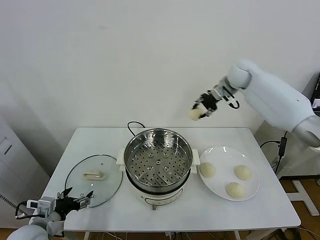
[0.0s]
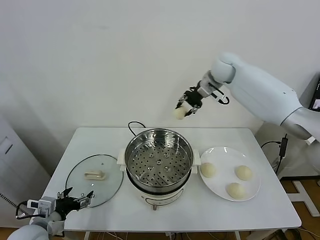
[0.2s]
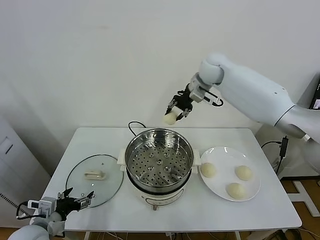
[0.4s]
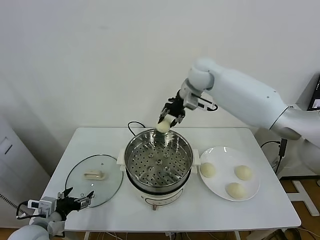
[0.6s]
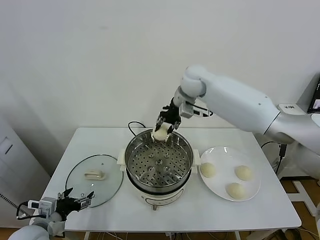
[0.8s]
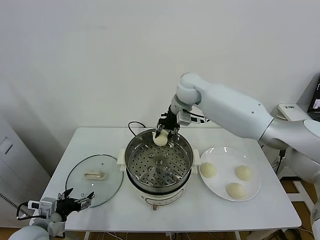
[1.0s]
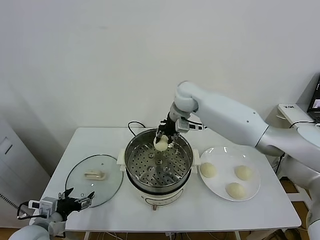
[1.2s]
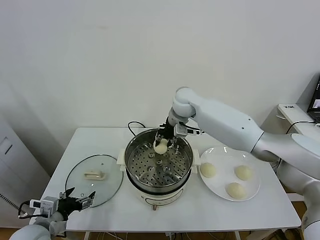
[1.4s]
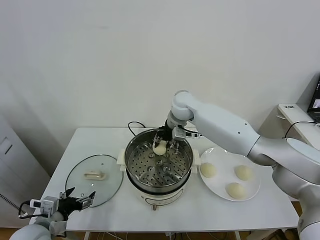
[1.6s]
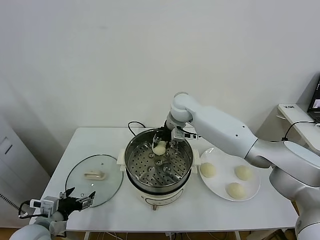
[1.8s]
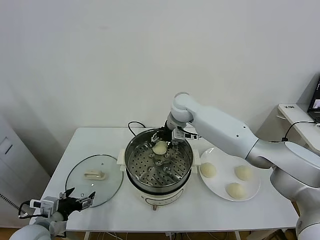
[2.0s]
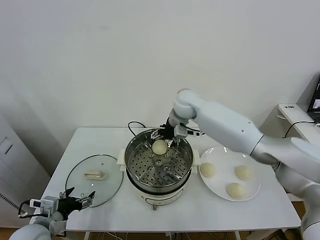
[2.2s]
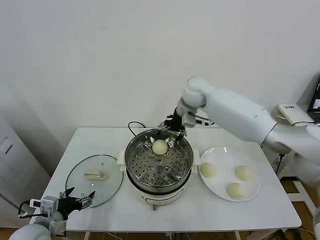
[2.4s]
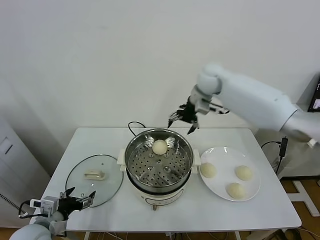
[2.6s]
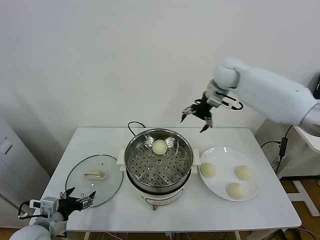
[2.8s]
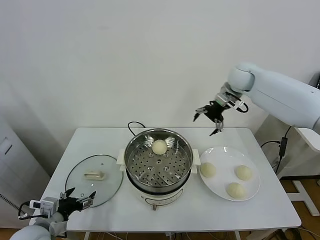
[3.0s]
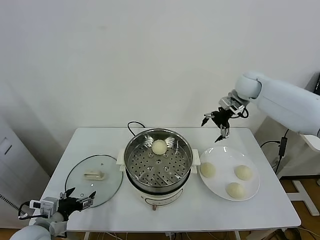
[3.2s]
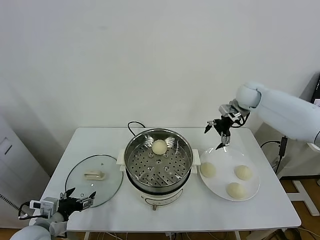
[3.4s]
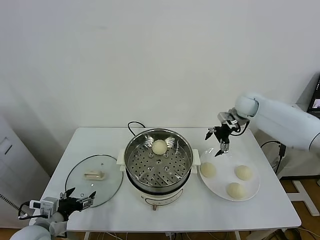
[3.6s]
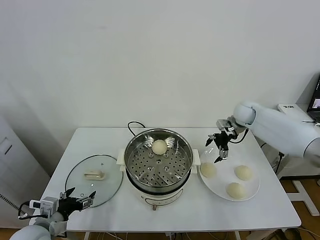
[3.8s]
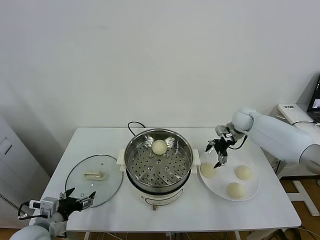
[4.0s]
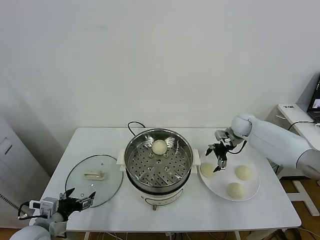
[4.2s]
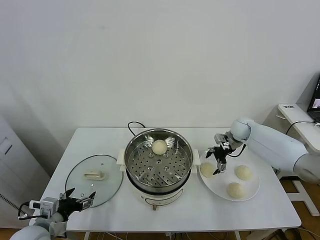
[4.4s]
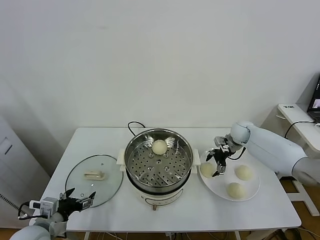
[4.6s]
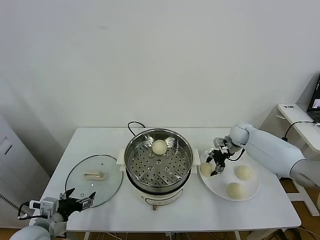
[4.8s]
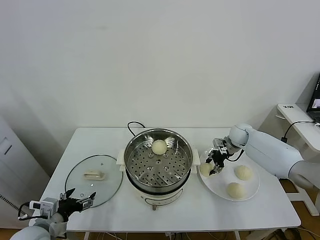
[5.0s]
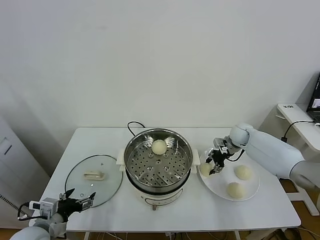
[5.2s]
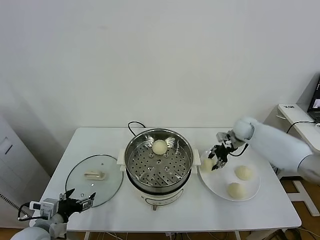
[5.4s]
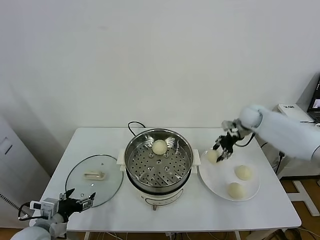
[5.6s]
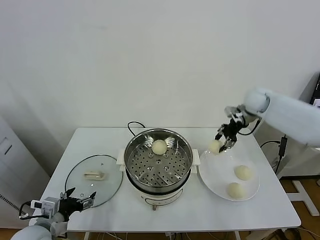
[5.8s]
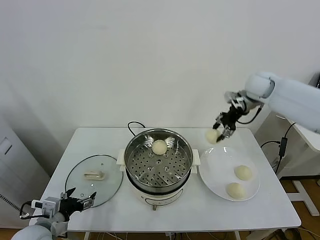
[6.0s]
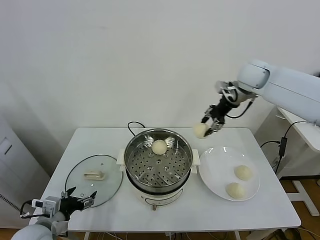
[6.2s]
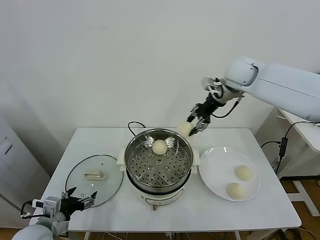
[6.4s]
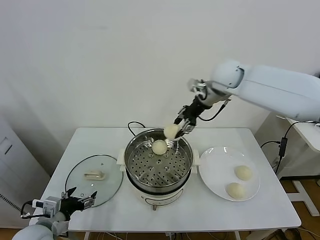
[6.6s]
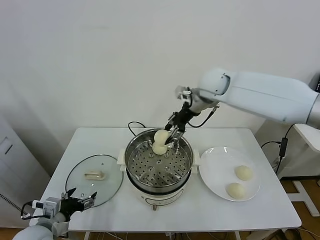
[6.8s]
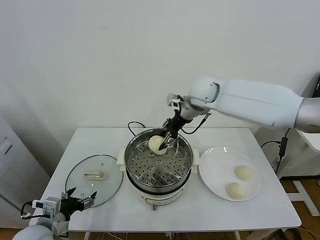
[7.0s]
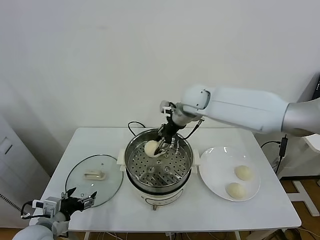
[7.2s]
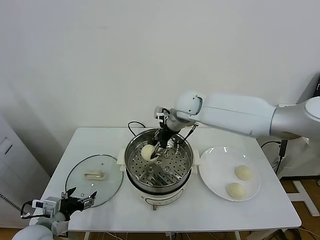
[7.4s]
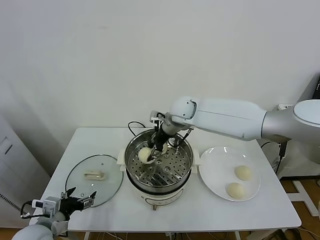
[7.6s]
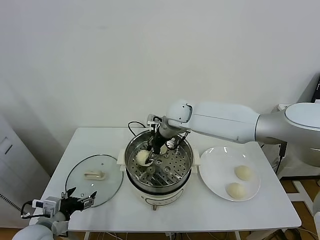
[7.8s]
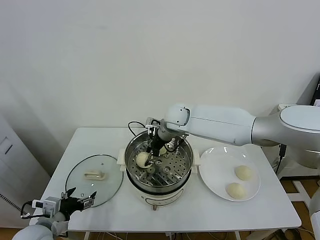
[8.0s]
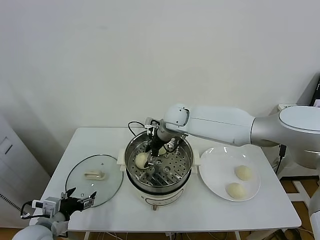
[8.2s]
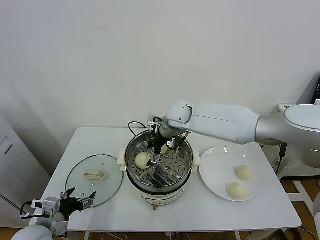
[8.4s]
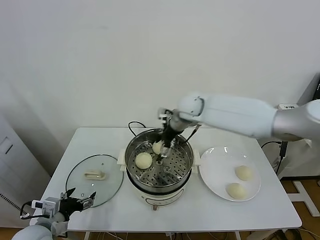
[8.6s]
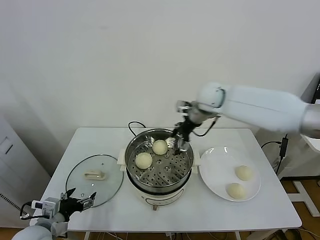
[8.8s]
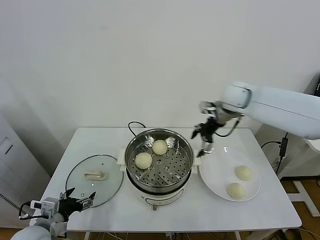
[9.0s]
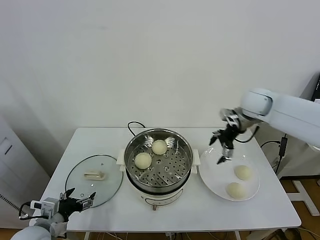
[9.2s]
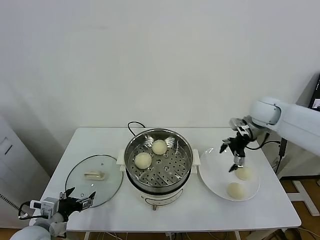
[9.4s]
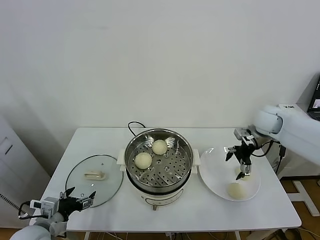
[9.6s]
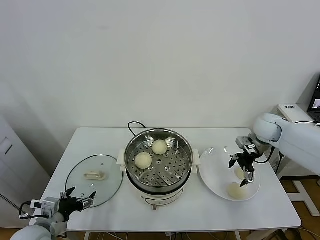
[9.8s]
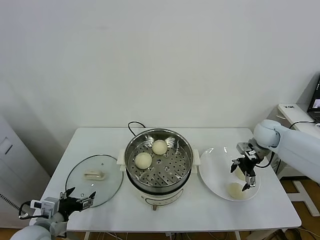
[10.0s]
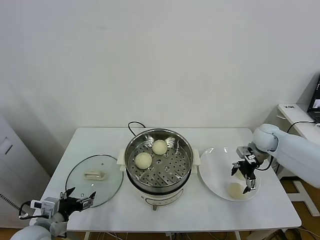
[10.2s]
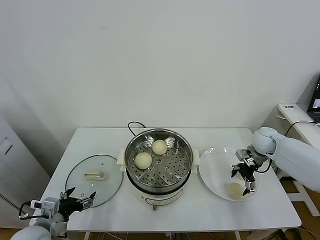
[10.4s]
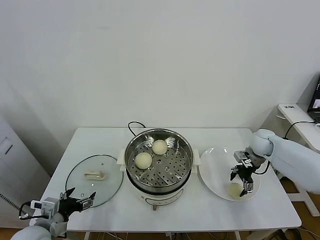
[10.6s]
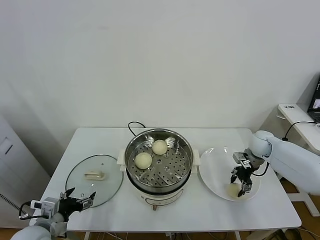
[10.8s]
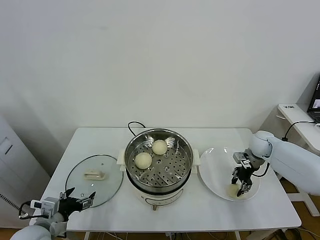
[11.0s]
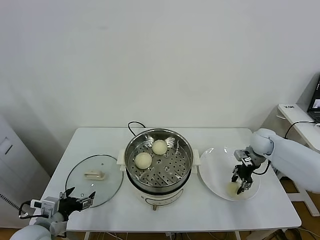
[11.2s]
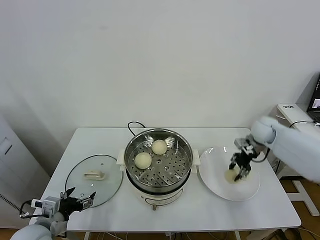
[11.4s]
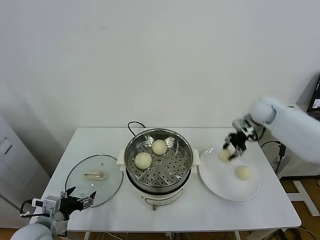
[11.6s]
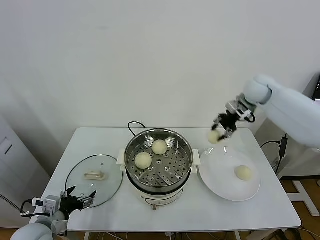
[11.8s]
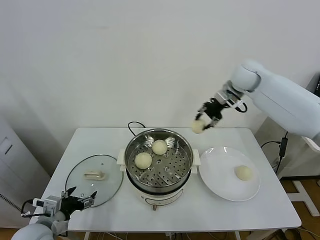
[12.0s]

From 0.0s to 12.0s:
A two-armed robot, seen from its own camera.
Task of the whole recording: take steamed baozi put them in steamer.
Step, from 0.0s to 2.0s: Place the baozi on the steamer with right gripper.
Step, from 2.2s to 4.8s: Grasp the baozi in the plate with right gripper.
Step, from 5.0s to 8.4s: Place the baozi on the steamer with right gripper.
Step, from 8.6s to 10.8s: Grasp the baozi in the plate with right gripper.
From 0.0s to 1.6s: The right gripper shifts roughly 20 cm to the left and downward.
From 1.6s to 3.0s: The right gripper shifts some 25 cm to the right and upward, and opens.
From 3.0s to 4.4s: The right gripper moves downward, some 20 cm.
From 4.4s to 6.0s: The right gripper goes approximately 25 cm upward, and closes.
From 6.0s to 7.6s: The right gripper travels to the left and downward by some 25 cm.
From 7.6s to 9.0s: The right gripper shifts approximately 20 cm to the right, and opens up.
From 9.0s to 10.4s: The right gripper heads downward and to the right, covering roughly 20 cm.
From 10.4s to 12.0s: The right gripper goes approximately 30 cm upward and to the left, and closes up.

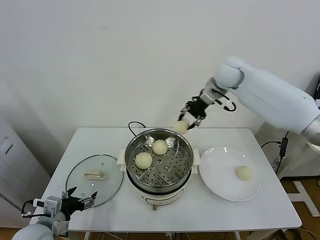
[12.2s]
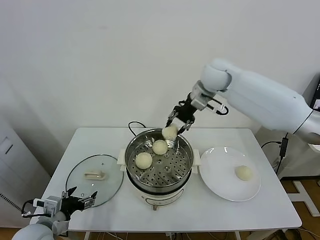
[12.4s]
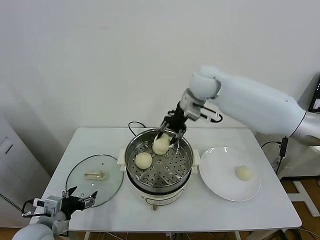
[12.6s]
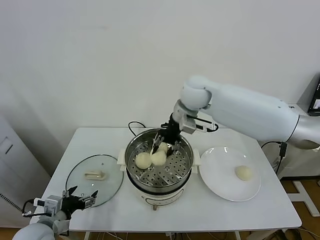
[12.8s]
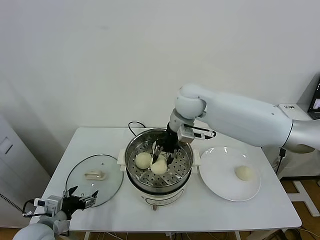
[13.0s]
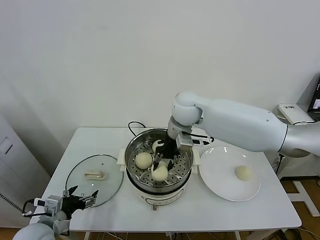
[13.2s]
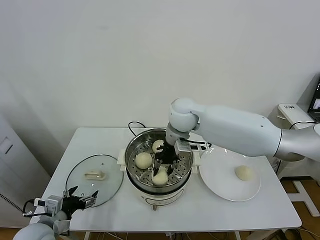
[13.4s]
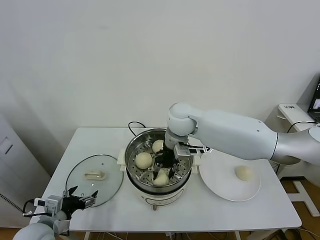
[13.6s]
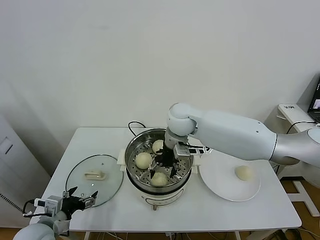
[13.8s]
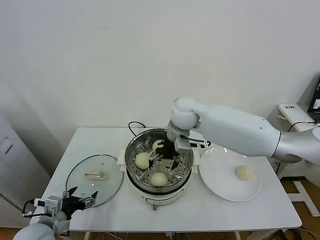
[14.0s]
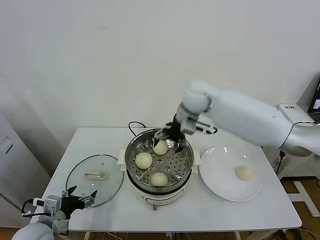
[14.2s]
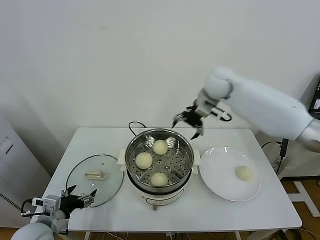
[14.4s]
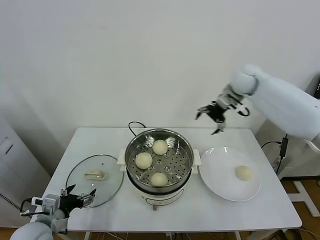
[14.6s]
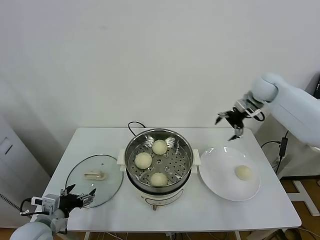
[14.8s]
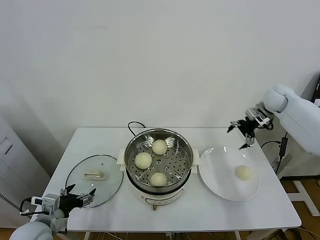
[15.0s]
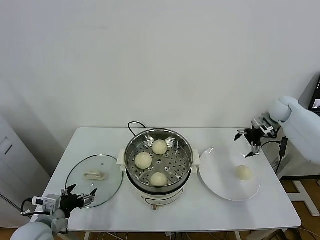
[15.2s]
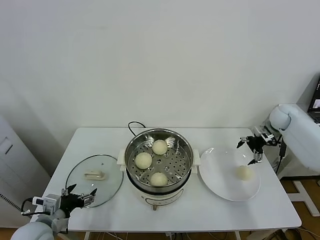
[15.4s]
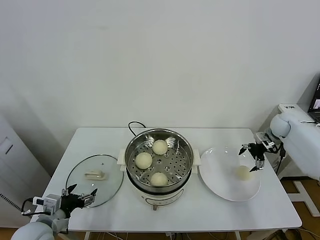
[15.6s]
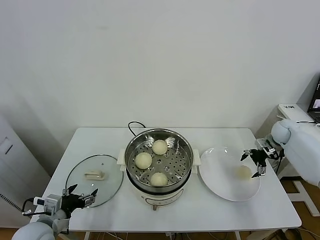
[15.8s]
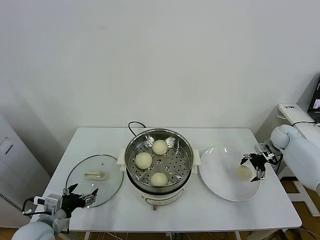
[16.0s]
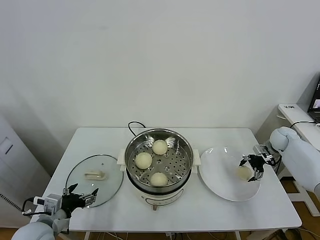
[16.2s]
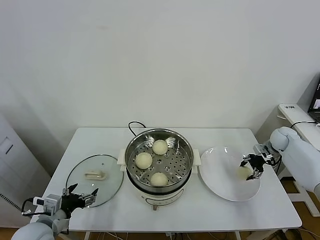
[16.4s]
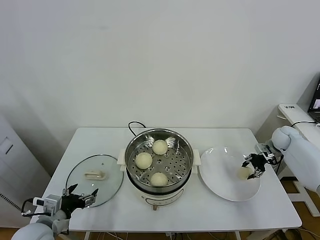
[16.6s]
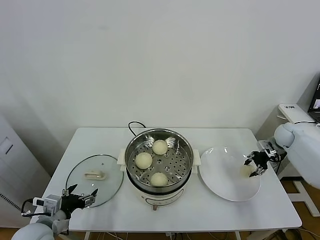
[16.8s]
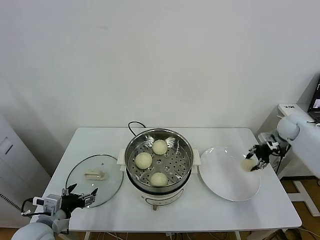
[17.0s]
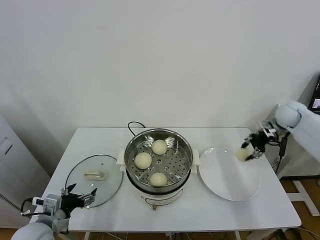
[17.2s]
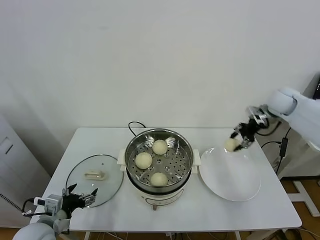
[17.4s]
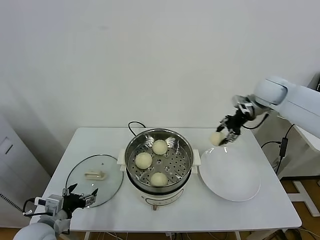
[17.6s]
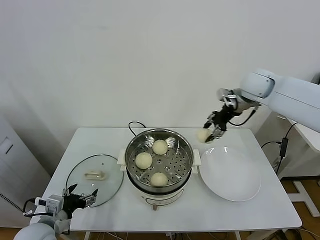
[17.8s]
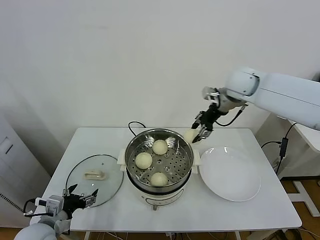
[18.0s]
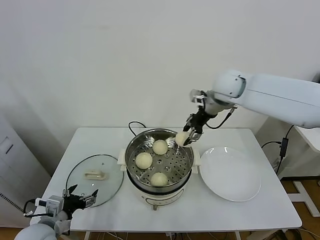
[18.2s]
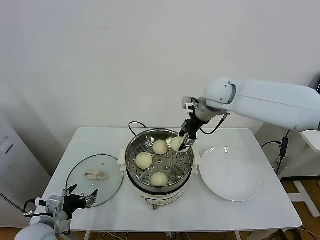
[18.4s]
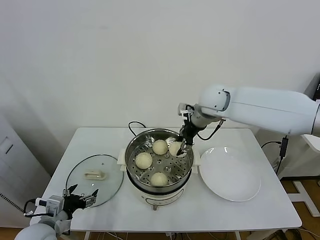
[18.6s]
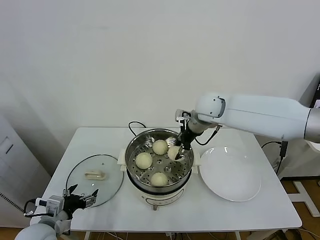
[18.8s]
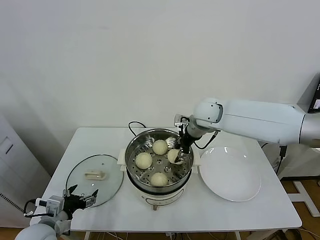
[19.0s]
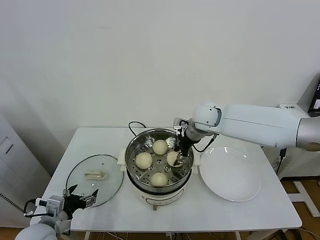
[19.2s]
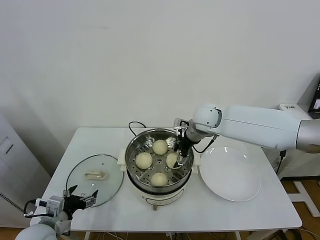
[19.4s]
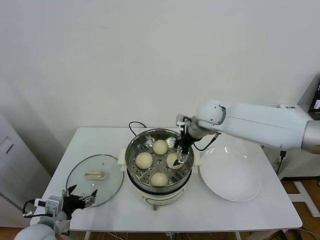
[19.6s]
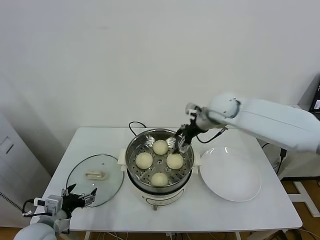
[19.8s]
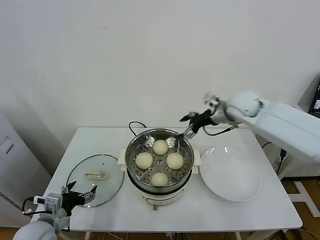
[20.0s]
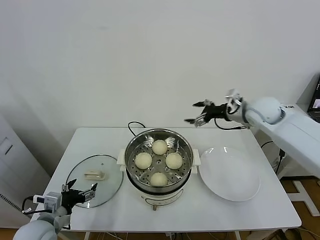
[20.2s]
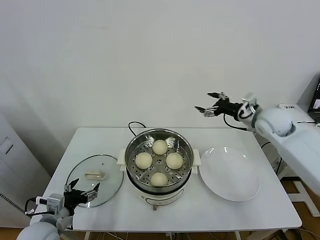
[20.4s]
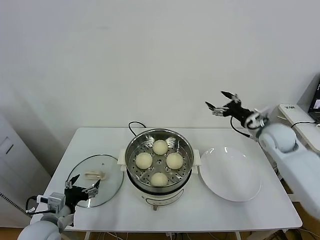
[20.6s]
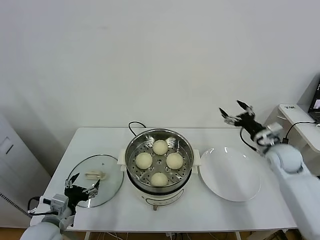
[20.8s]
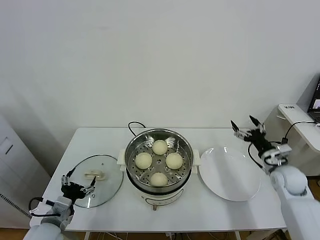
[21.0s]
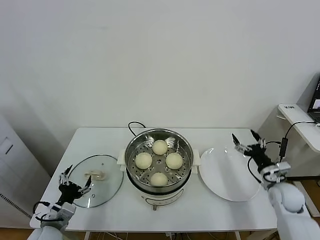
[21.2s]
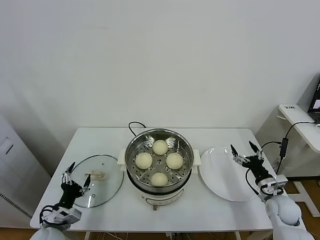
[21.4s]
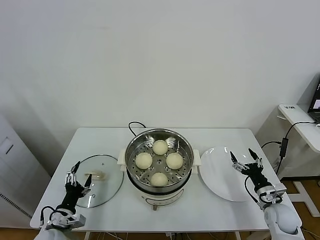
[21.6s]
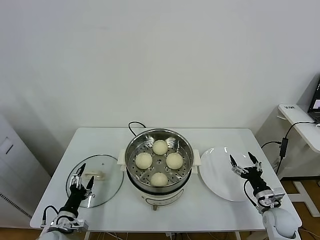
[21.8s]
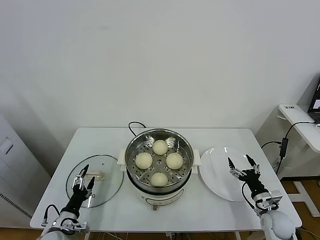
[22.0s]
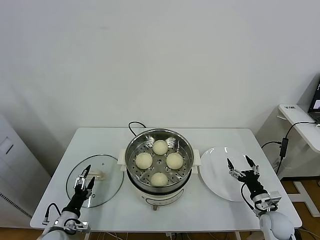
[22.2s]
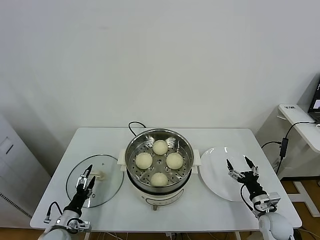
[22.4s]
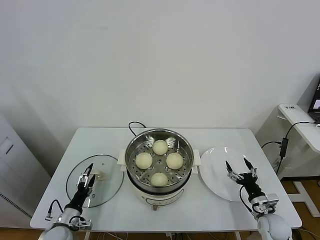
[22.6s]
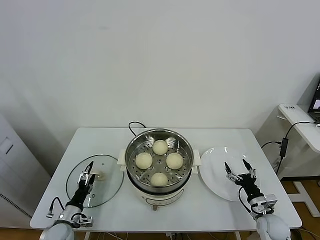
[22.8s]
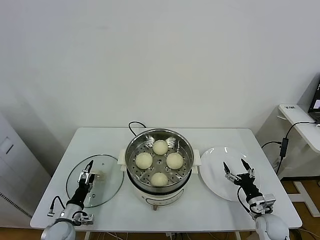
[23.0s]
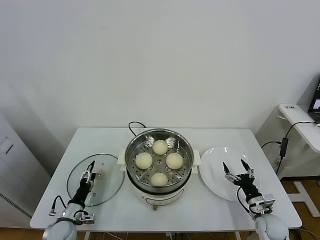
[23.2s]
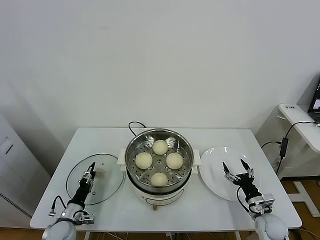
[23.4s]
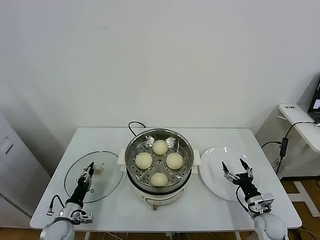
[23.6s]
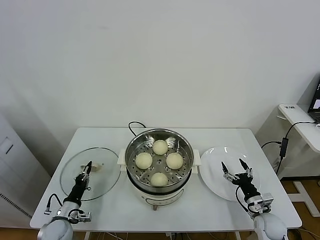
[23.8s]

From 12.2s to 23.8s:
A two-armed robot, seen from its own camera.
Task of the whole recording: take steamed baozi put them in steamer.
Step, from 12.2s to 14.0s: Place the baozi on the steamer with right gripper.
Step, from 14.2s to 16.4s: Grasp the baozi in the plate with right gripper.
Step, from 16.6s to 19.6s: Place the baozi on the steamer with right gripper.
From 12.2s to 13.6s: The right gripper heads to the left, downward and backward, covering approximately 20 cm.
From 13.6s to 15.0s: The right gripper goes roughly 35 cm to the right, and opens up.
From 15.0s to 16.6s: The right gripper is displaced downward and to the right by about 15 cm, and closes.
From 16.6s to 18.0s: The right gripper travels to the left and upward by approximately 35 cm.
From 18.0s to 19.4s: The right gripper heads downward and to the left, covering roughly 15 cm, and opens.
From 19.4s to 21.0s: The right gripper goes about 35 cm to the right, downward and backward.
From 21.0s to 22.4s: The left gripper travels downward by approximately 15 cm. Meanwhile the right gripper shifts some 20 cm downward and backward.
From 22.4s to 23.8s: The left gripper closes up.
